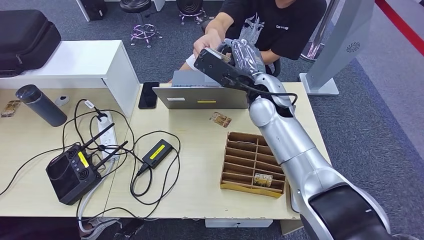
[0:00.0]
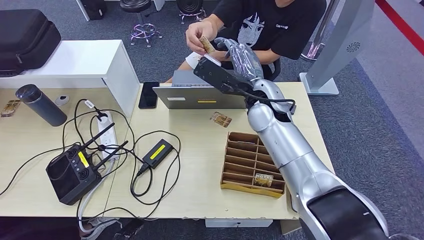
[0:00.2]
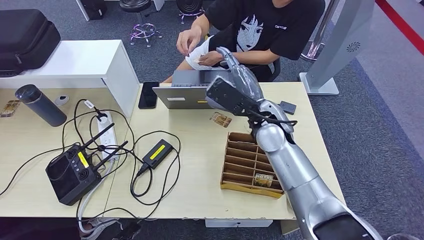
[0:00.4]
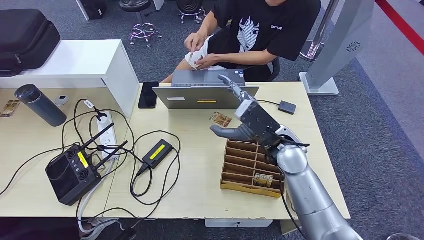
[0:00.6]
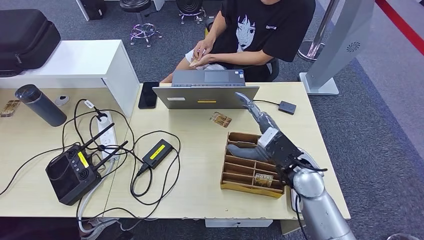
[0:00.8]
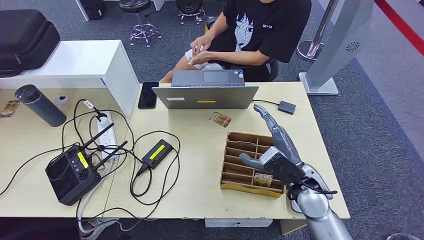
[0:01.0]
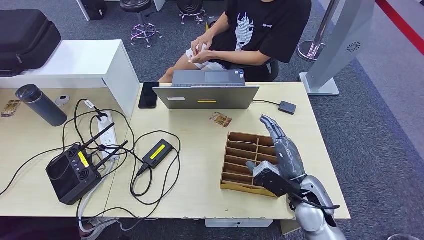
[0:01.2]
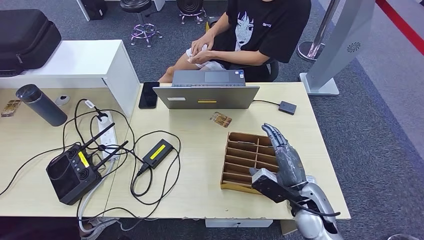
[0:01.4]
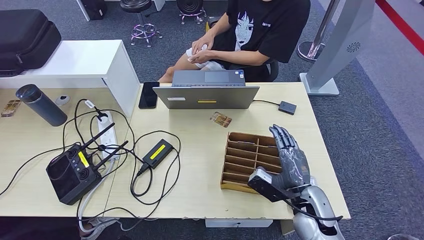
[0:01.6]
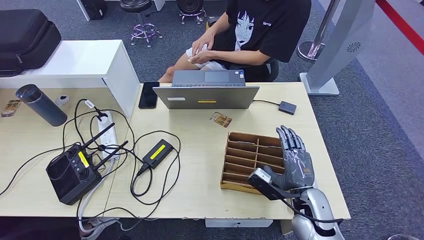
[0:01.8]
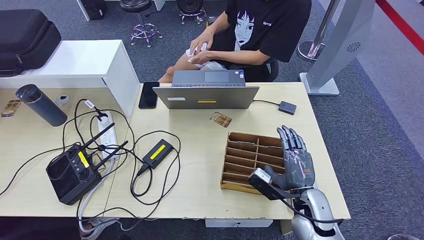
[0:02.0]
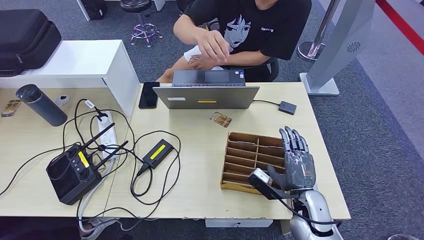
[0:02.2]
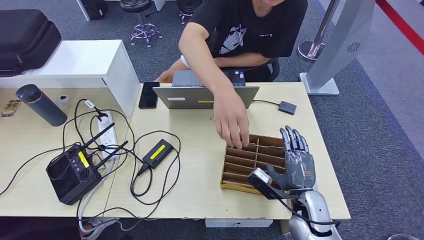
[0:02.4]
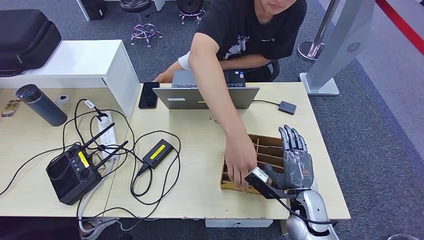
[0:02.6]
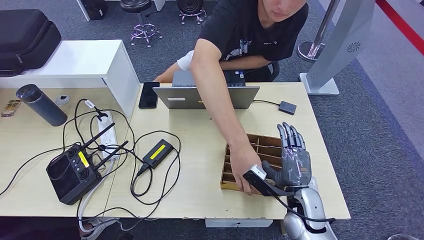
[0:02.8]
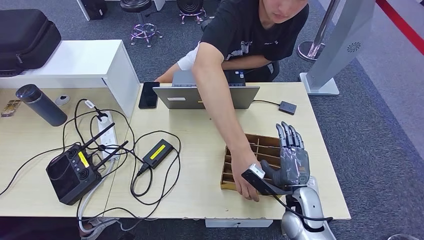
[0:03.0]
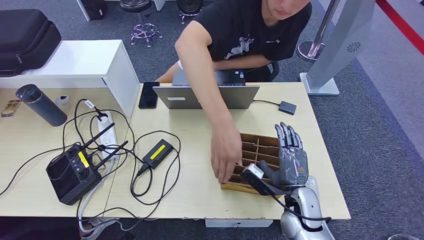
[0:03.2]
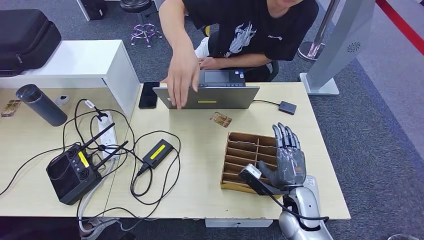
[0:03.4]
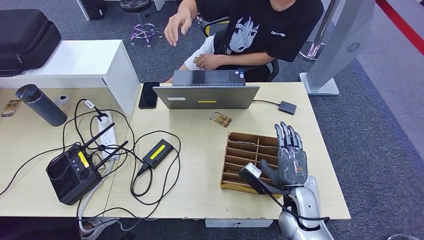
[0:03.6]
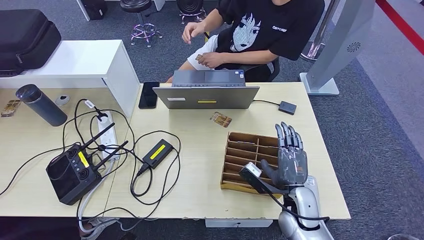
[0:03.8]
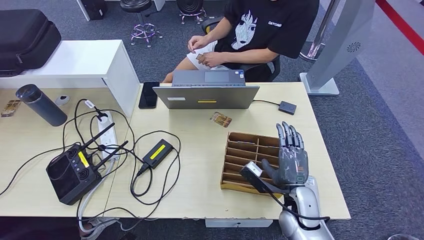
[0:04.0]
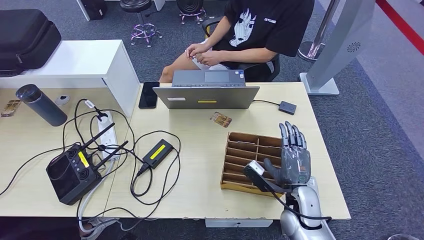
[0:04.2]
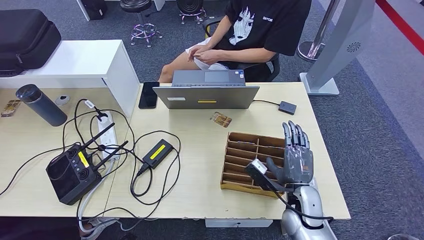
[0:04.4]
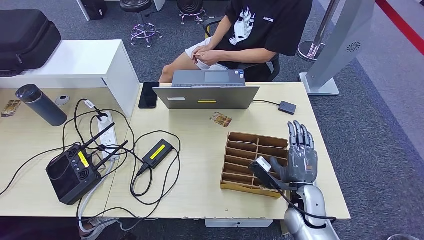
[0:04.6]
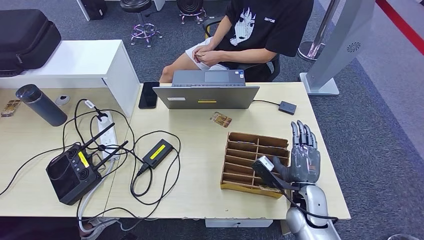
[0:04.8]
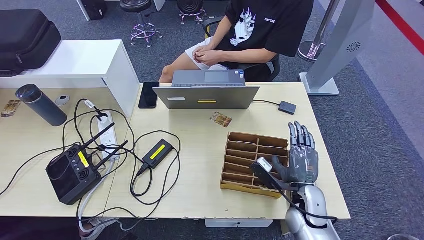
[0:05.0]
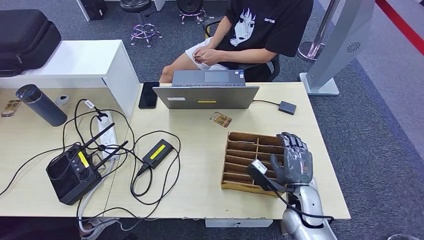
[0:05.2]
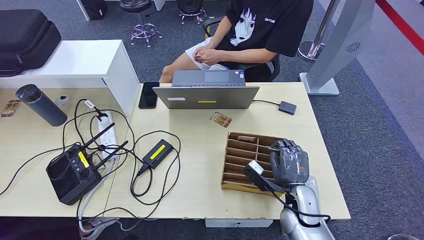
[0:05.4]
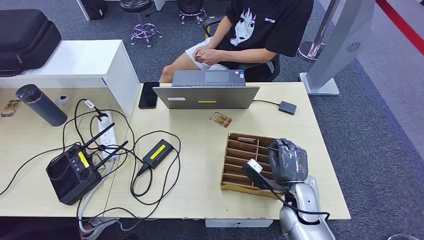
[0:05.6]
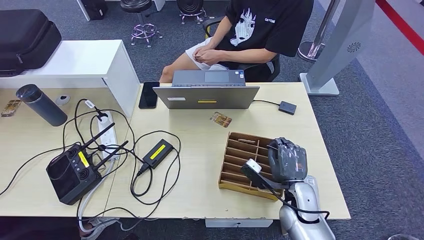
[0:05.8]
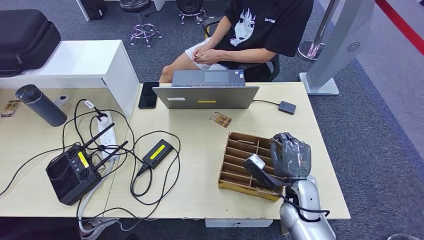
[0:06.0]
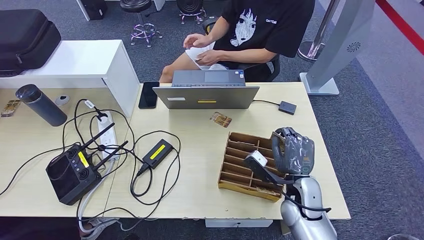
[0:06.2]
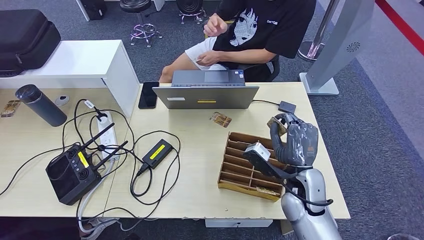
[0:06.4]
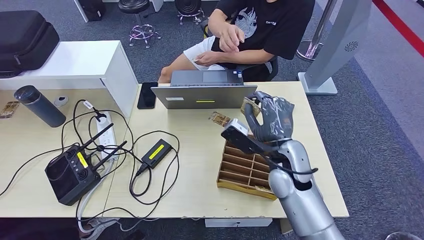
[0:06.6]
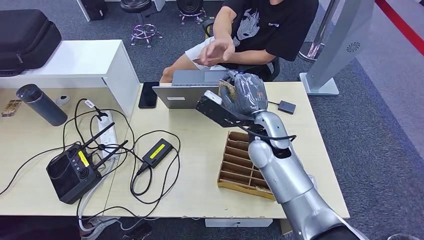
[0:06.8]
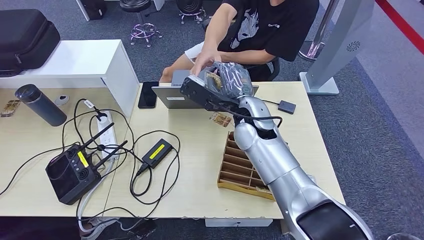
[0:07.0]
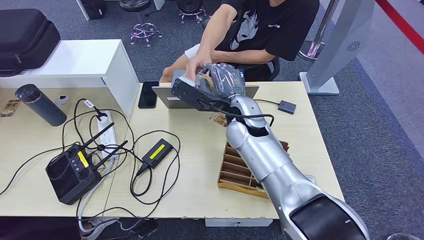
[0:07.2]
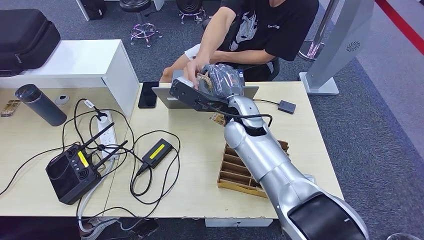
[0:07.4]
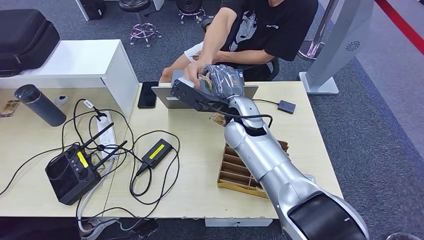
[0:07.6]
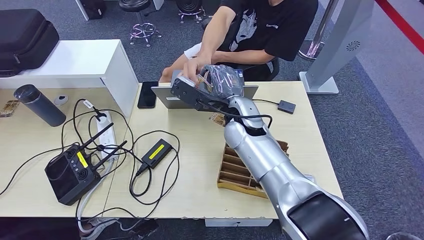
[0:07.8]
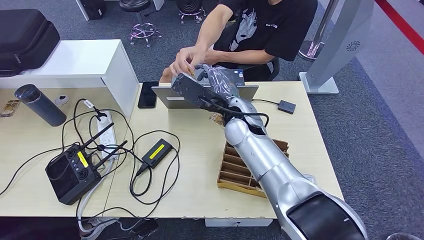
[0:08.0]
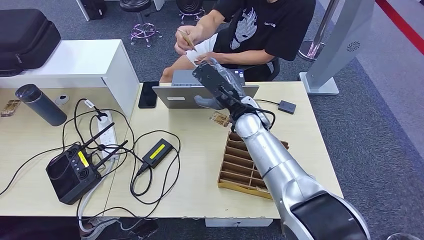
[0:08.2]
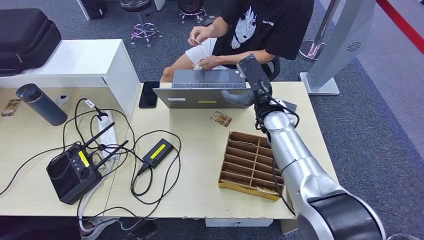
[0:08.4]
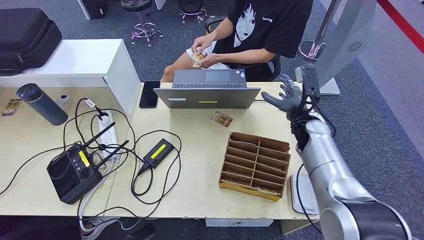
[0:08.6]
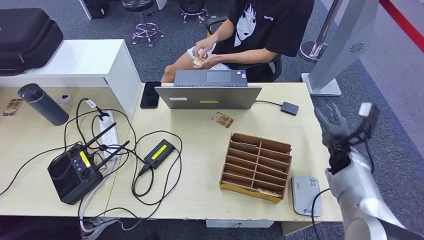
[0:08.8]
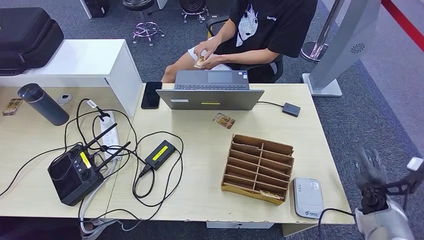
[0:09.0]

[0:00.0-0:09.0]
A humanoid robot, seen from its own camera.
Step, 0:00.0 to 0:01.8: Hand the ID card to the person.
Step, 0:02.2 to 0:06.8: Pick up the room key from the key card box.
Step, 0:07.0 to 0:09.0: Hand the room key to the person.
0:00.0 to 0:01.6: The left hand goes roughly 5 cm backward. The right hand shifts about 30 cm downward, backward and to the right.
0:01.6 to 0:04.4: The hands make only small movements.
0:04.4 to 0:06.0: The hands stay close to where they were, moving slightly.
0:06.0 to 0:07.6: The left hand moves forward, roughly 5 cm. The right hand heads upward, to the left and forward, covering approximately 25 cm.
